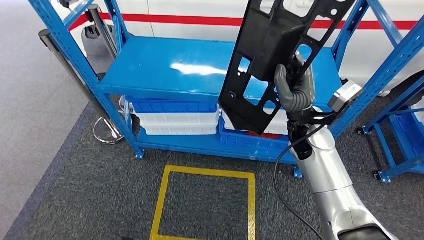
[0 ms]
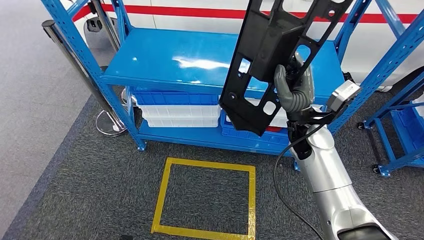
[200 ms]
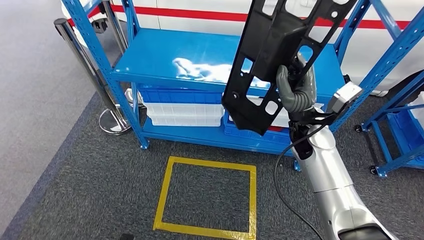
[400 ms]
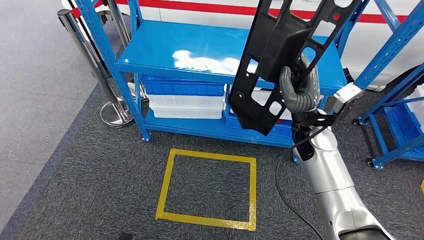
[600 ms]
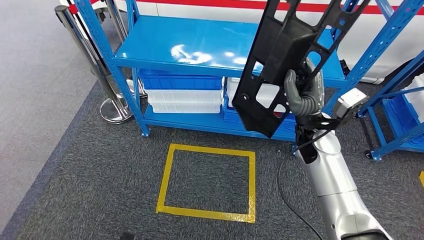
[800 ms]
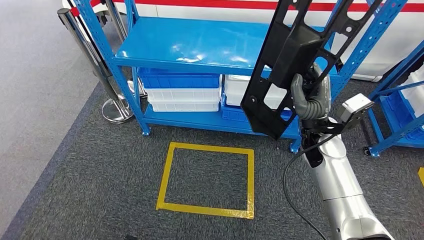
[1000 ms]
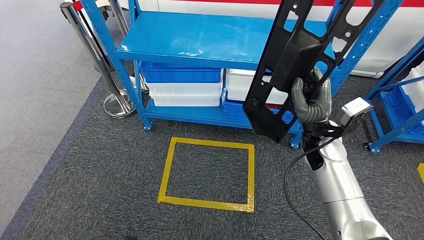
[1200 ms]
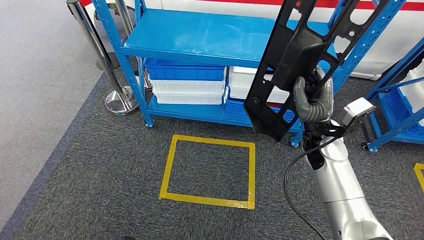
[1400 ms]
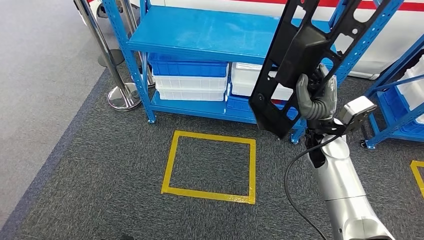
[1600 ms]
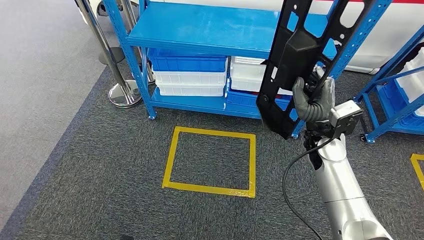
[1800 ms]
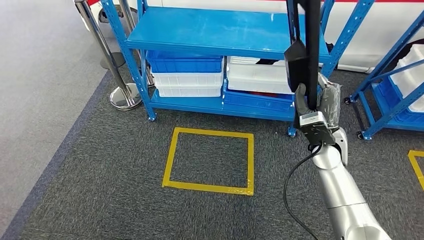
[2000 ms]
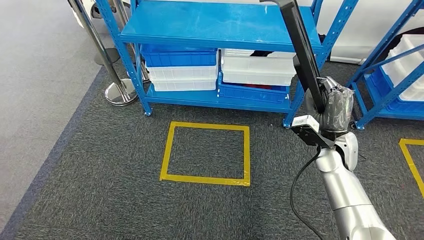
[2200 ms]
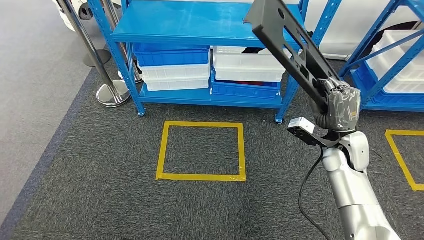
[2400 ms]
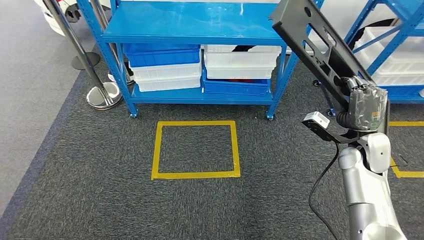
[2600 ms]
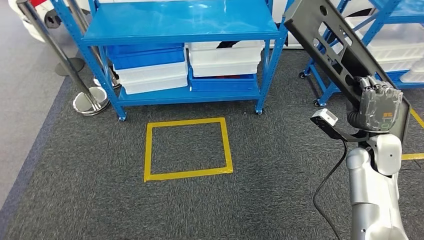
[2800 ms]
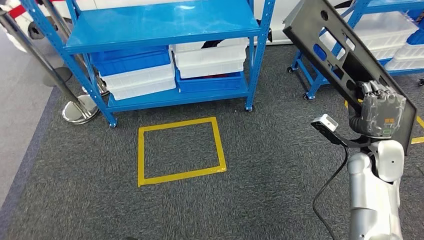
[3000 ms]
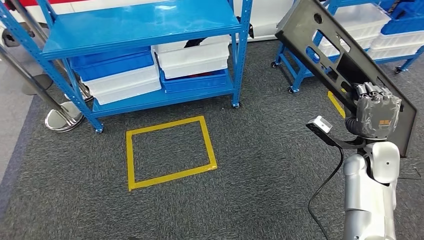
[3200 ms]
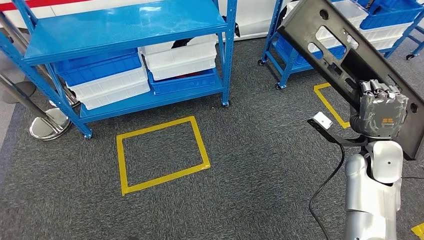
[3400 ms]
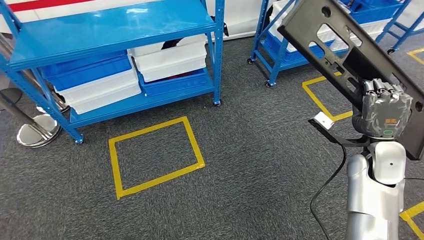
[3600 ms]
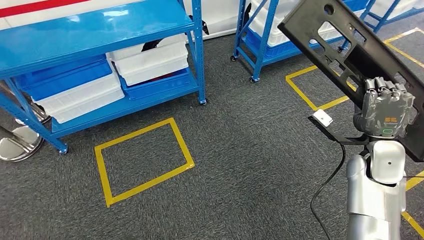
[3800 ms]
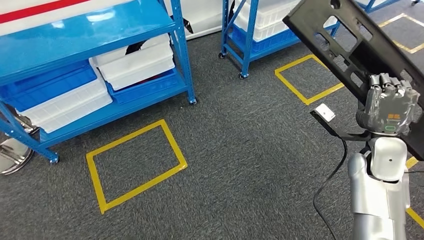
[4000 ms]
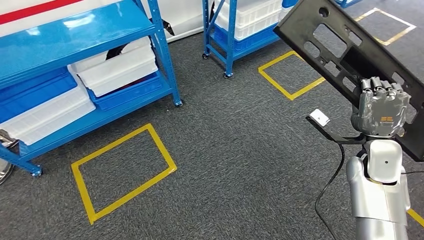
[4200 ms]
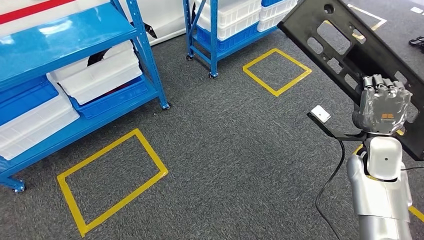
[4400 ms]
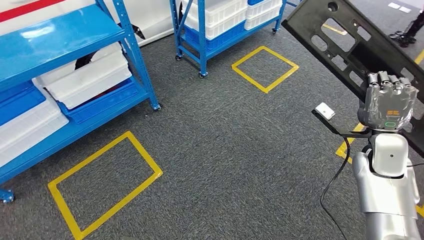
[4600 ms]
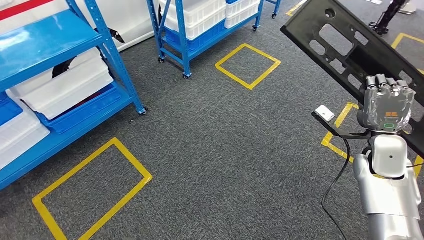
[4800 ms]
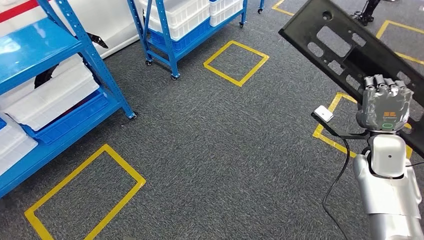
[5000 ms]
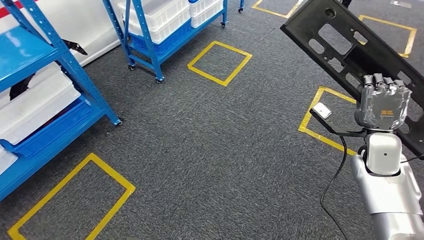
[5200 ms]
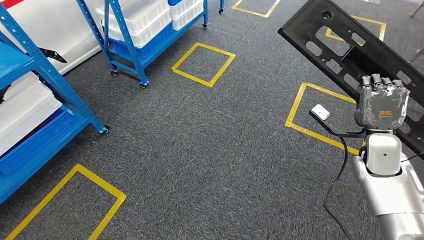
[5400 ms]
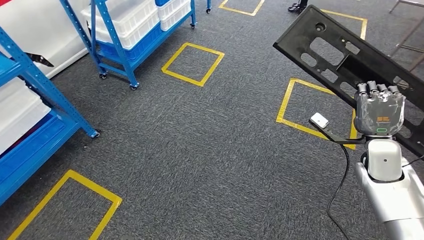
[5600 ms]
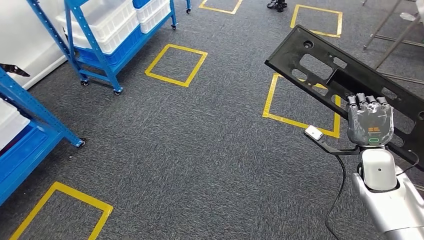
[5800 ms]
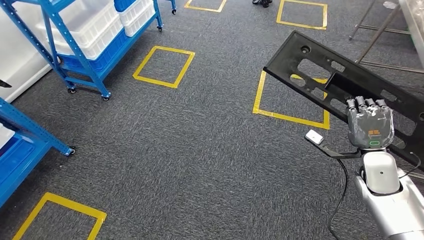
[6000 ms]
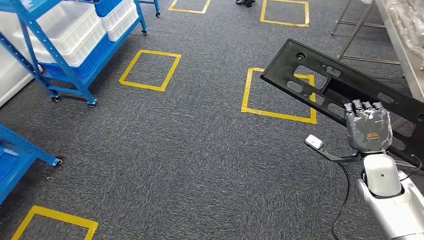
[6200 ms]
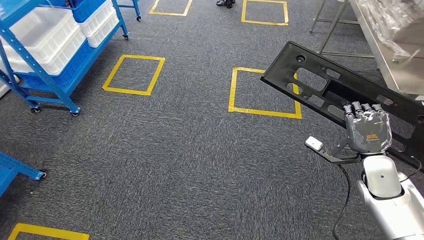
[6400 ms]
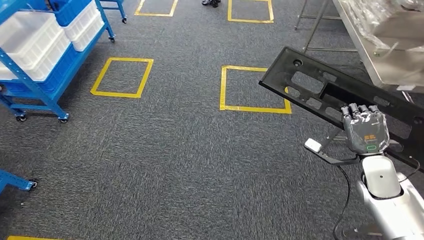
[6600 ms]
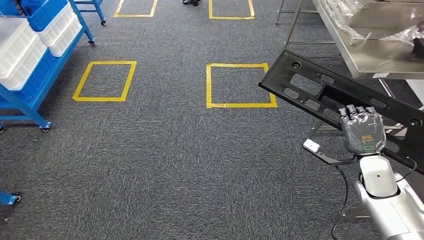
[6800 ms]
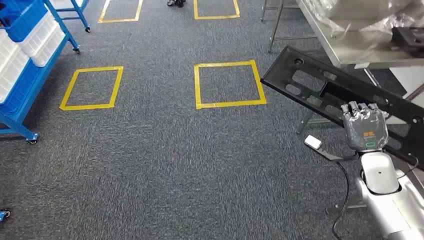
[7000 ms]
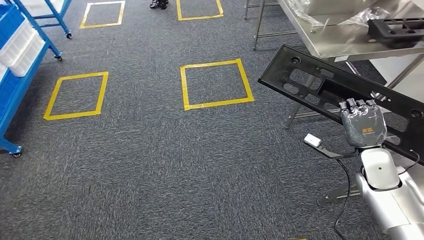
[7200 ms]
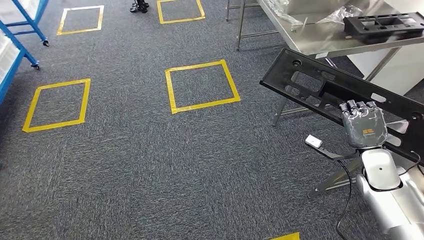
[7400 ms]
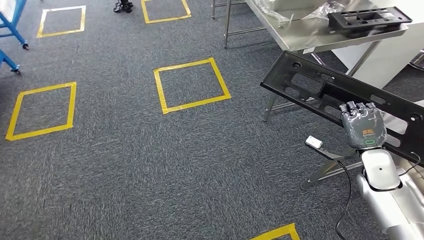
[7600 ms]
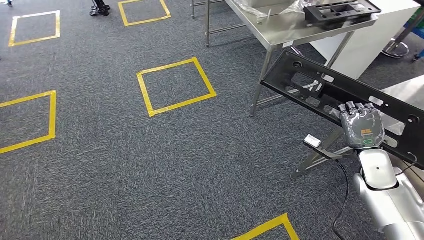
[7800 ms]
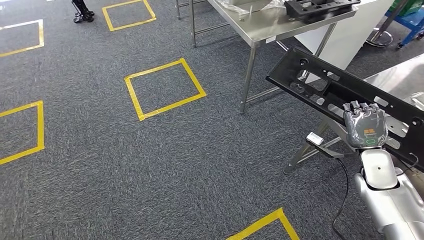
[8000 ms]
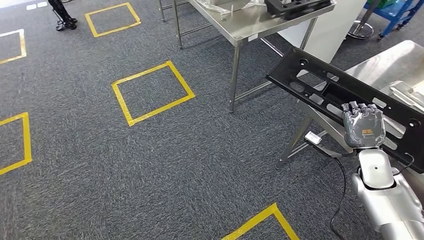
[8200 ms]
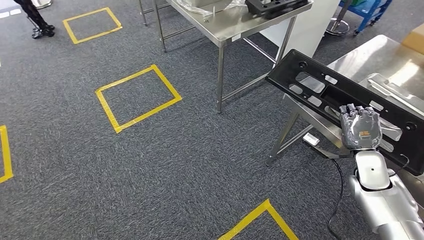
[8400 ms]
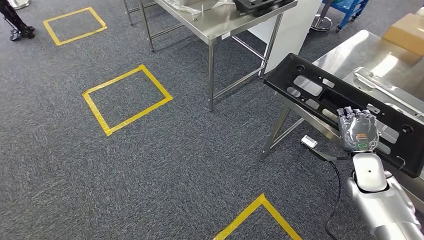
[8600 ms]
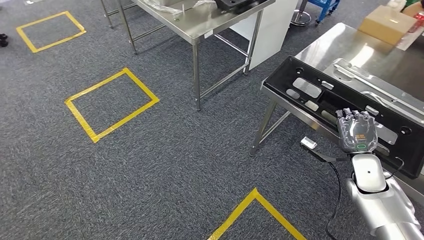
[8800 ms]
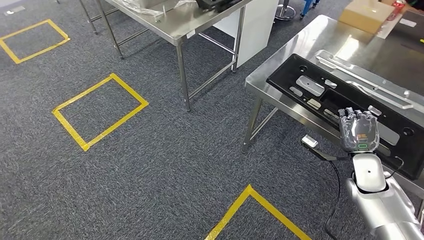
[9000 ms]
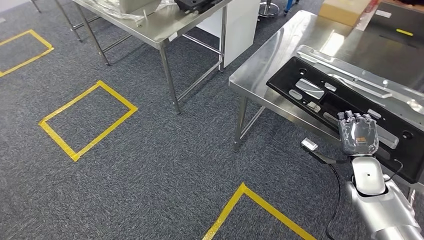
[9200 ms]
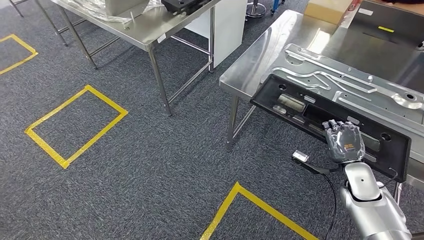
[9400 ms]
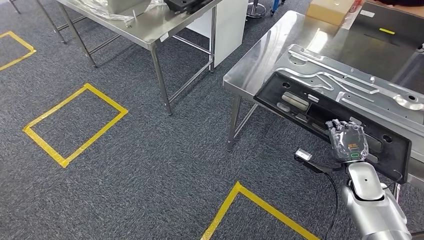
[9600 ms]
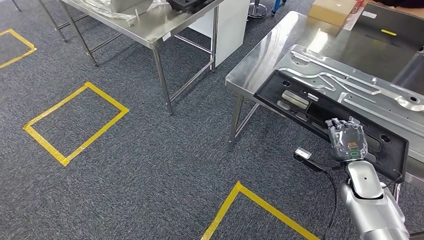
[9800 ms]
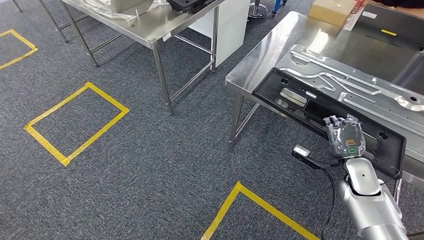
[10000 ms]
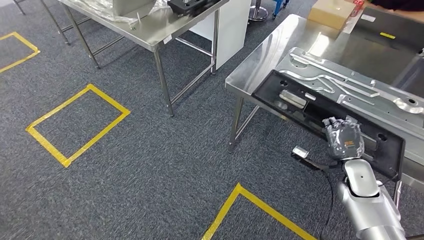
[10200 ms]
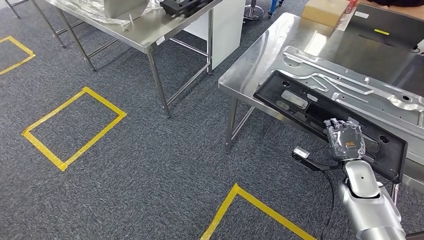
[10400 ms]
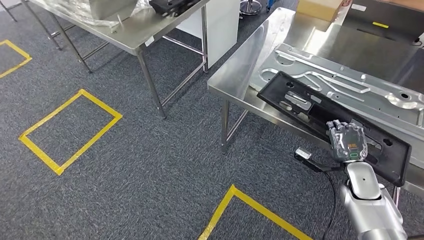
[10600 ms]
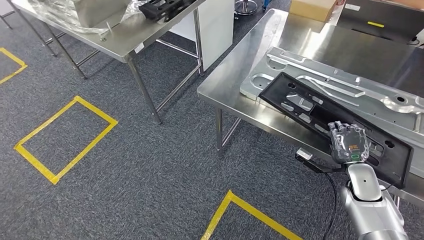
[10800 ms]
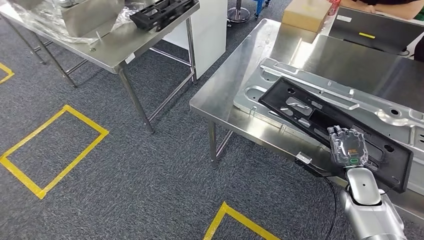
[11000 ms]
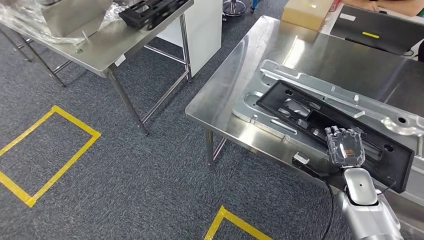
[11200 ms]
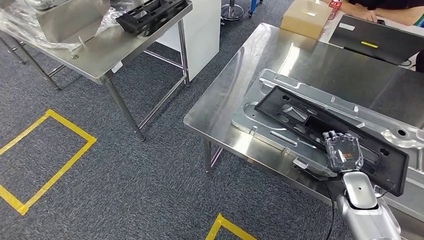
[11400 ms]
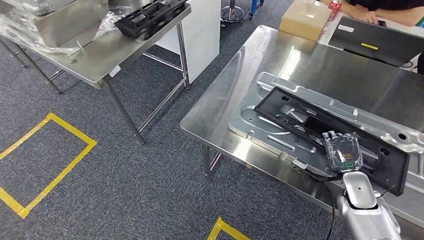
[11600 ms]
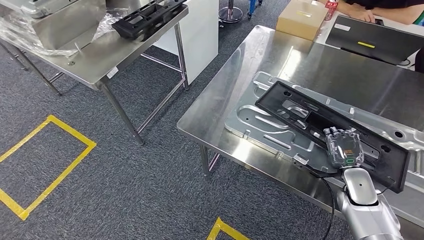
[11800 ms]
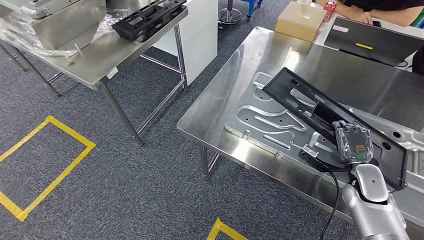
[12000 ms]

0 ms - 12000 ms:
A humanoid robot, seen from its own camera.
Step, 400 ms - 11400 ms: Move the large material to the workbench.

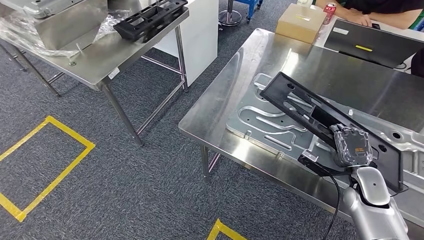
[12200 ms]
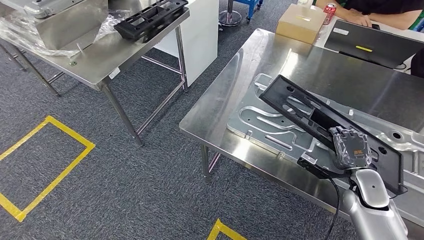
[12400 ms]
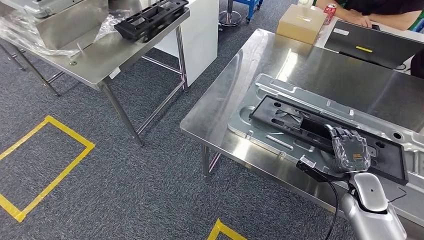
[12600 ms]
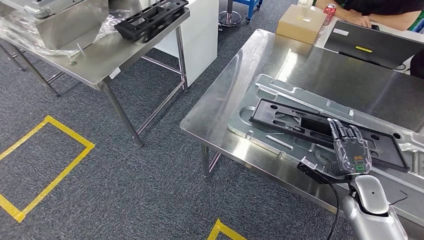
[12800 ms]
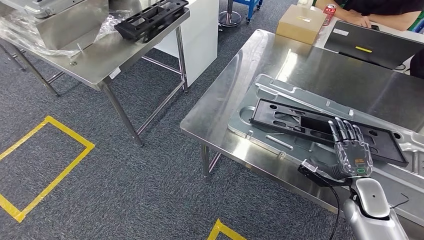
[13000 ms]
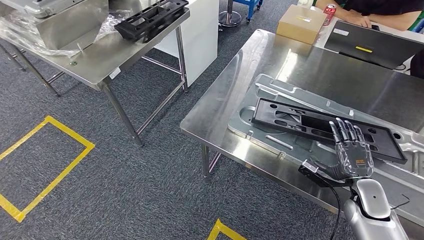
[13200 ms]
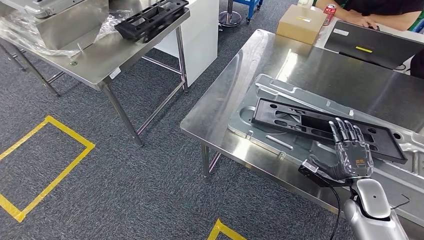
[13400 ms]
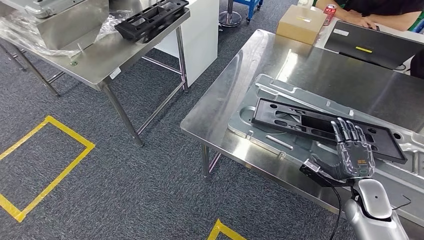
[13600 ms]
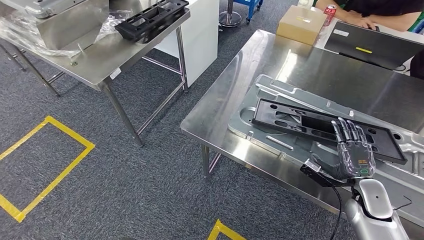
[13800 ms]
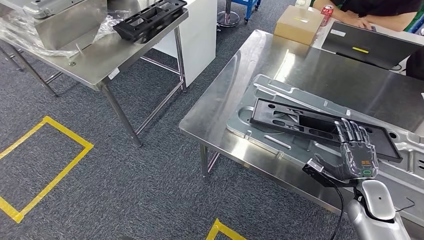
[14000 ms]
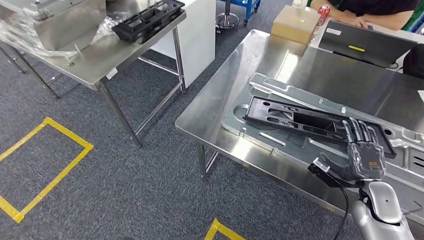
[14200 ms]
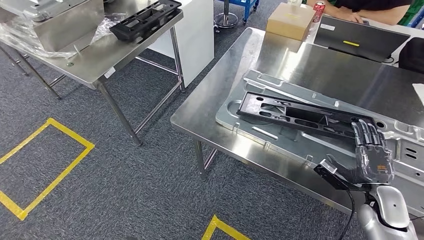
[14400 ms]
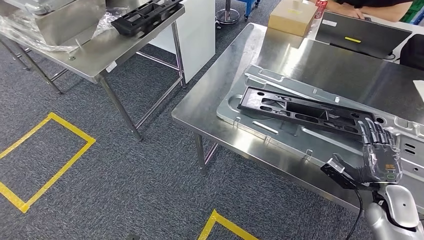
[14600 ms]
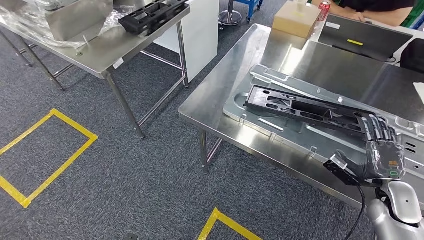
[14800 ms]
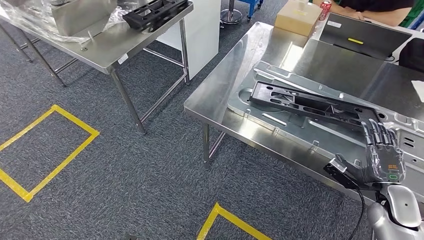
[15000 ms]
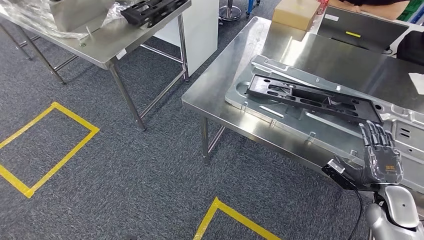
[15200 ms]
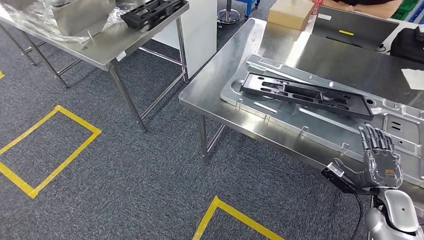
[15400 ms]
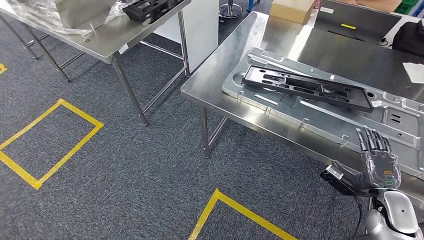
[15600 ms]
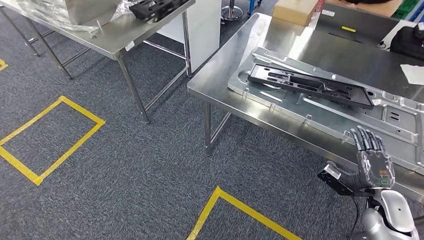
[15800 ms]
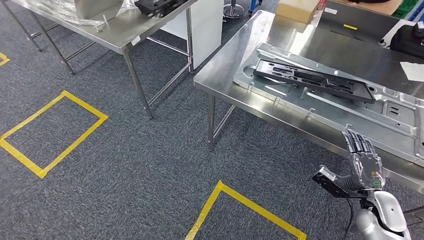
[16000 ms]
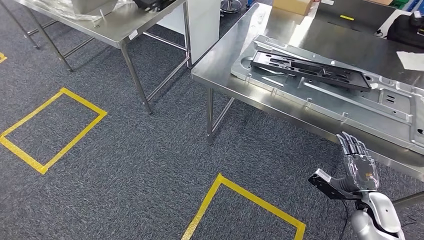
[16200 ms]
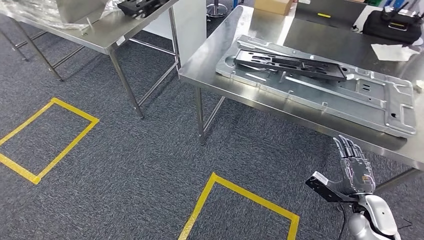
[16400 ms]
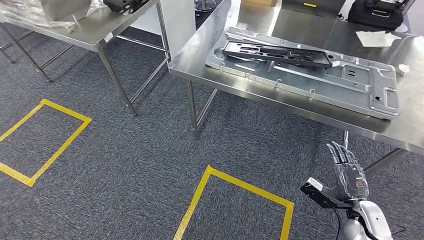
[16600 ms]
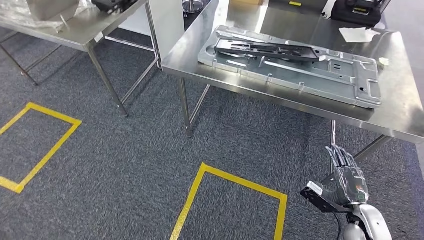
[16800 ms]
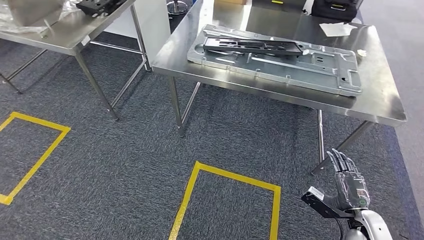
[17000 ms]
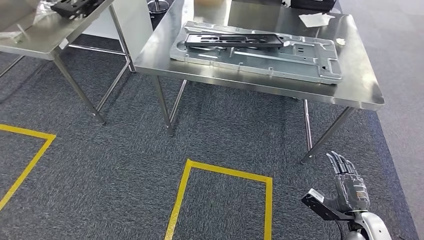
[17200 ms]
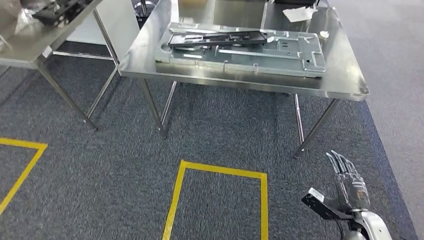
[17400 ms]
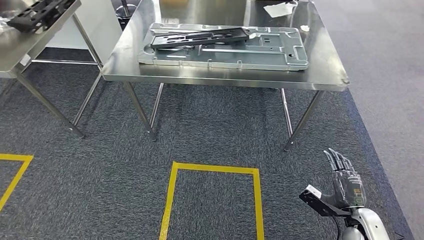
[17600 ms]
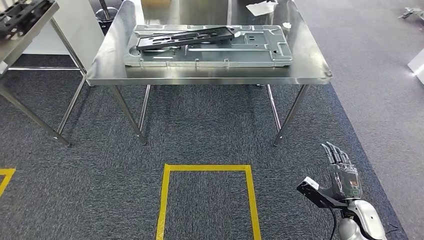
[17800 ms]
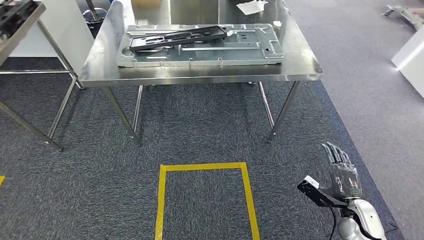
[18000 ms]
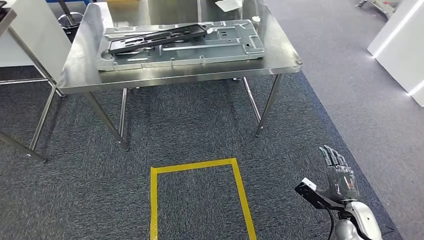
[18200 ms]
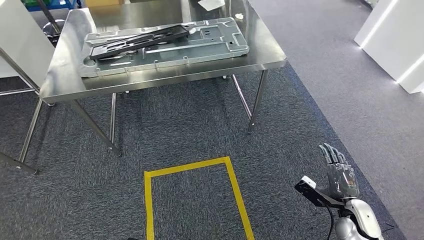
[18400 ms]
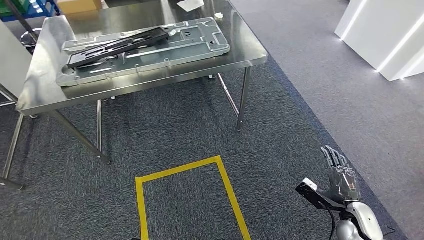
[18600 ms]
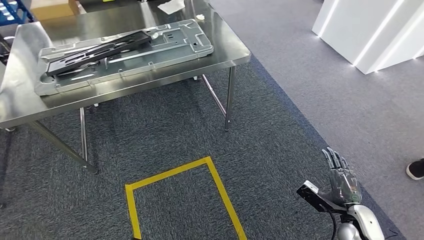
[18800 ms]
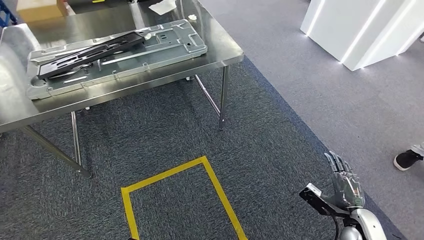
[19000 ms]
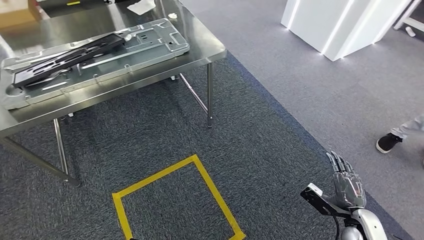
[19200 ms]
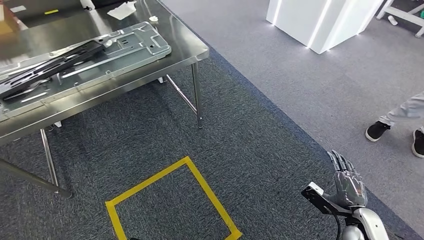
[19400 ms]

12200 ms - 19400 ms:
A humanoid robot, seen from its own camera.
Step, 12800 ms - 16000 ms: Insert the large material into the corresponding slot on the workbench.
12200 ms - 13600 ms: The hands stay close to where they were, moving slightly.
